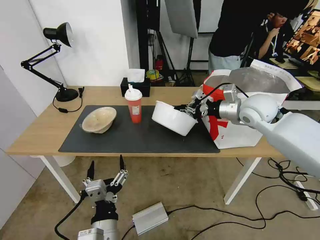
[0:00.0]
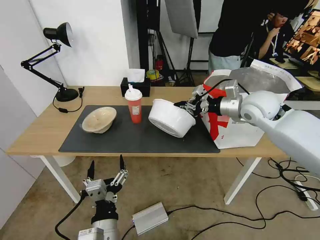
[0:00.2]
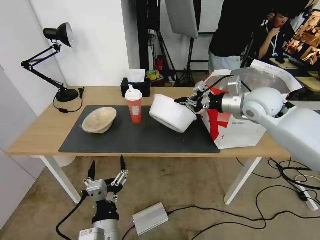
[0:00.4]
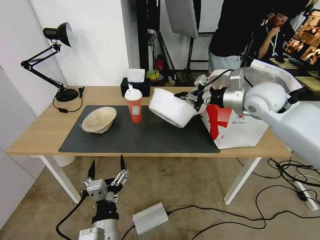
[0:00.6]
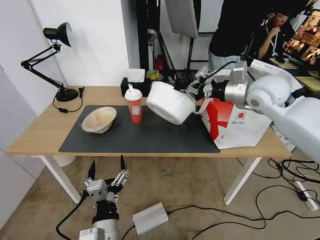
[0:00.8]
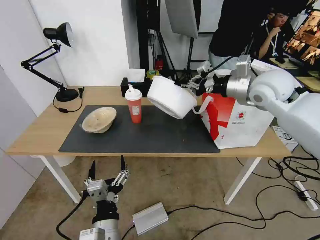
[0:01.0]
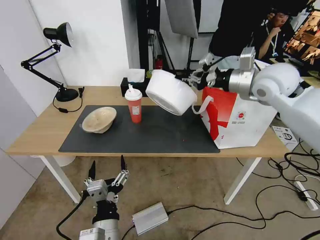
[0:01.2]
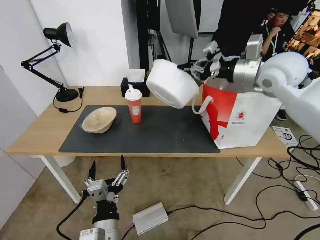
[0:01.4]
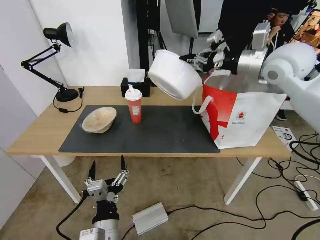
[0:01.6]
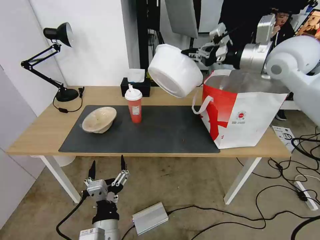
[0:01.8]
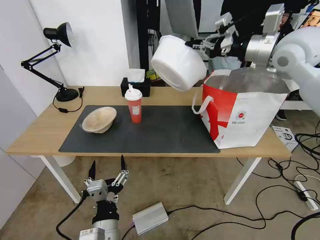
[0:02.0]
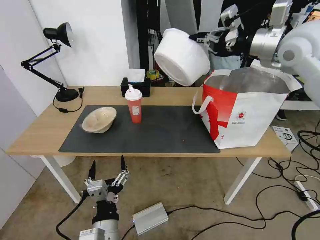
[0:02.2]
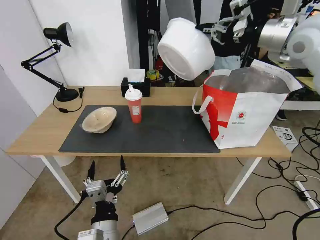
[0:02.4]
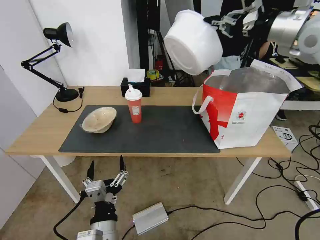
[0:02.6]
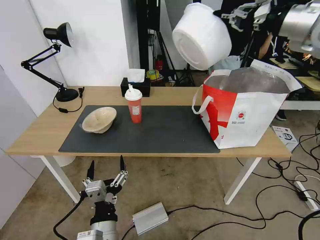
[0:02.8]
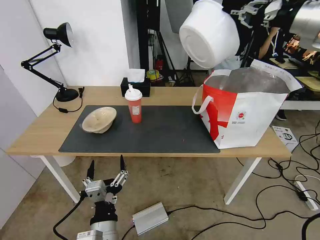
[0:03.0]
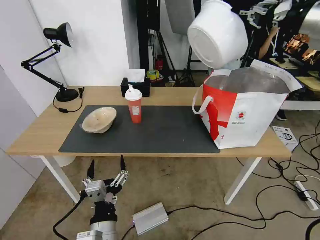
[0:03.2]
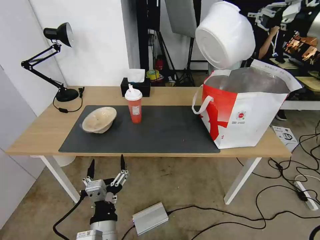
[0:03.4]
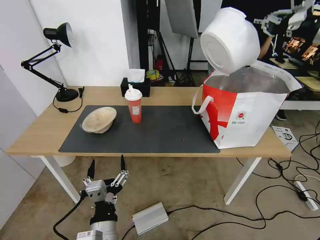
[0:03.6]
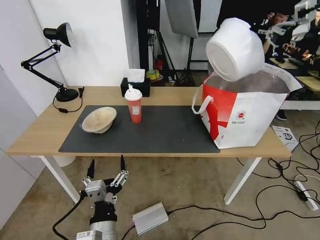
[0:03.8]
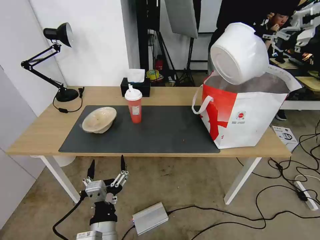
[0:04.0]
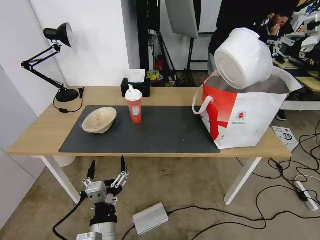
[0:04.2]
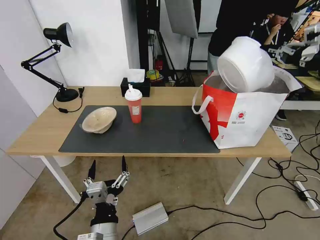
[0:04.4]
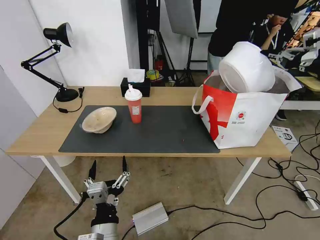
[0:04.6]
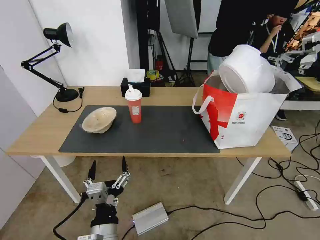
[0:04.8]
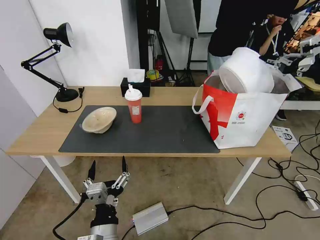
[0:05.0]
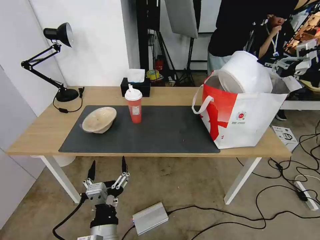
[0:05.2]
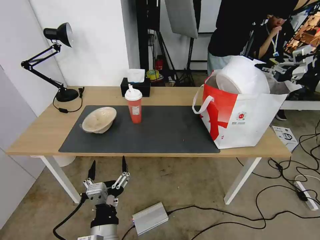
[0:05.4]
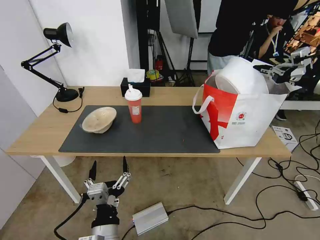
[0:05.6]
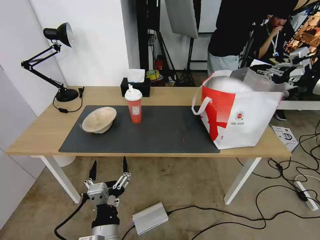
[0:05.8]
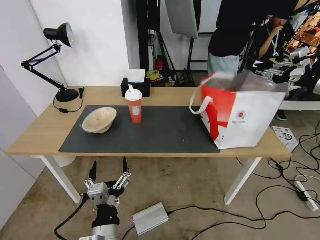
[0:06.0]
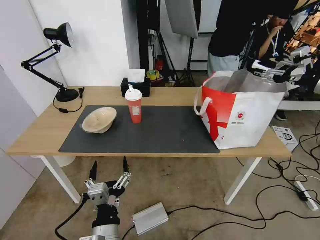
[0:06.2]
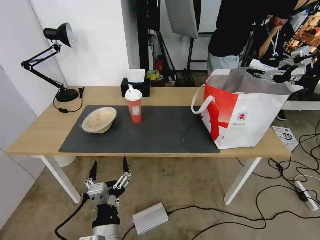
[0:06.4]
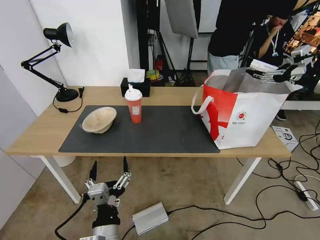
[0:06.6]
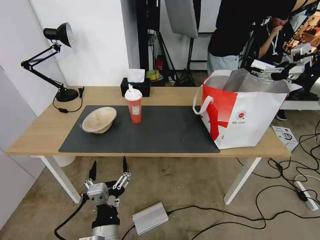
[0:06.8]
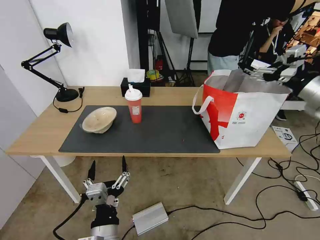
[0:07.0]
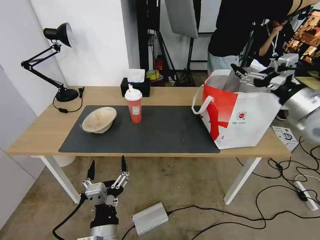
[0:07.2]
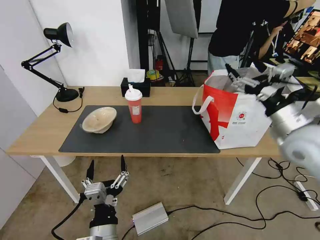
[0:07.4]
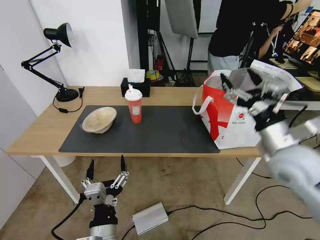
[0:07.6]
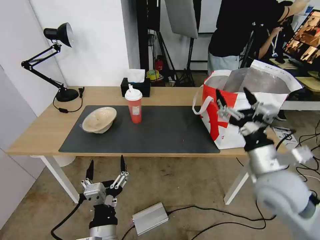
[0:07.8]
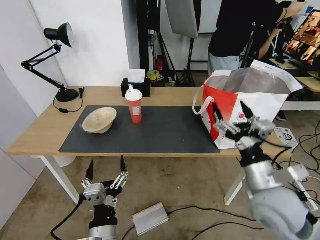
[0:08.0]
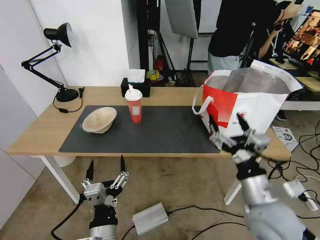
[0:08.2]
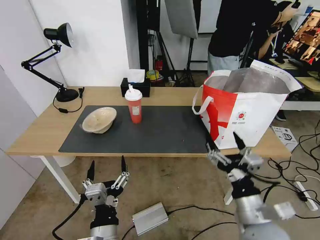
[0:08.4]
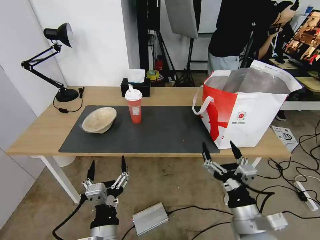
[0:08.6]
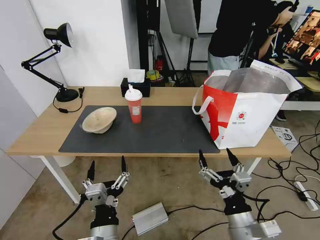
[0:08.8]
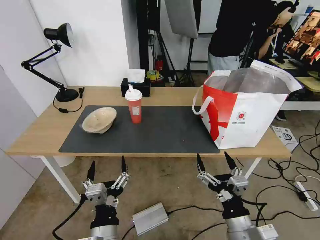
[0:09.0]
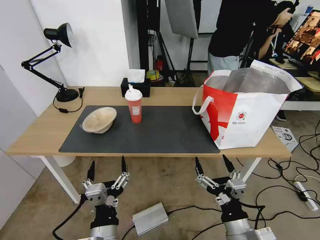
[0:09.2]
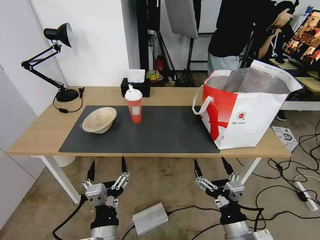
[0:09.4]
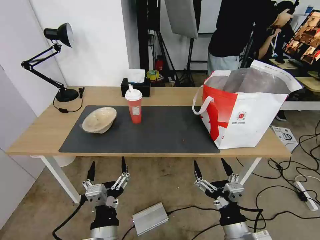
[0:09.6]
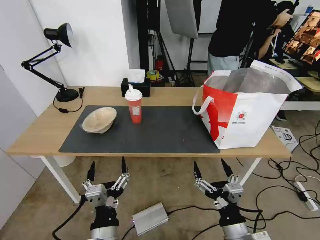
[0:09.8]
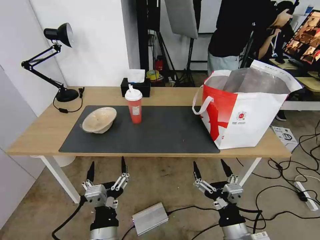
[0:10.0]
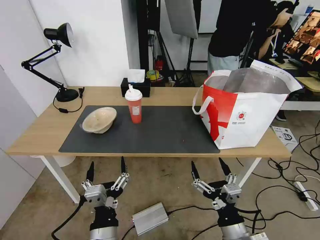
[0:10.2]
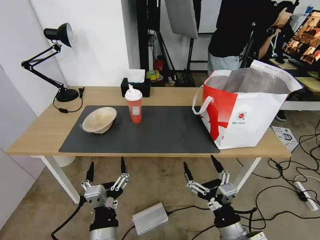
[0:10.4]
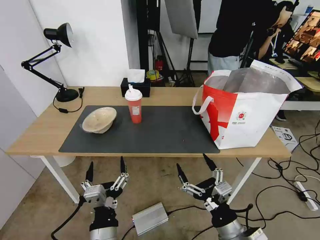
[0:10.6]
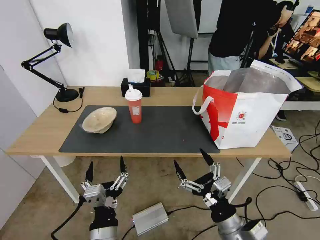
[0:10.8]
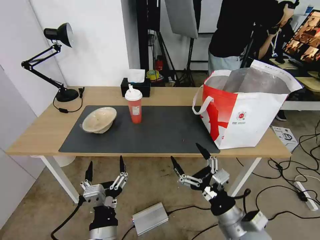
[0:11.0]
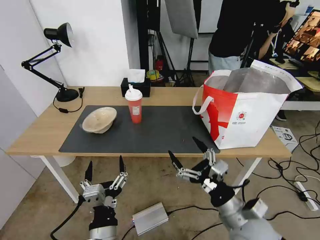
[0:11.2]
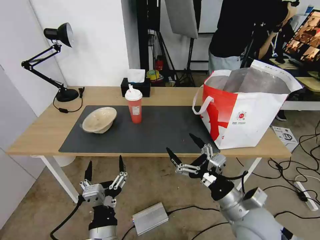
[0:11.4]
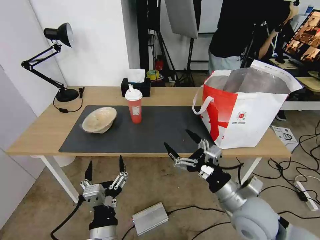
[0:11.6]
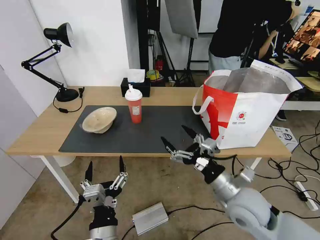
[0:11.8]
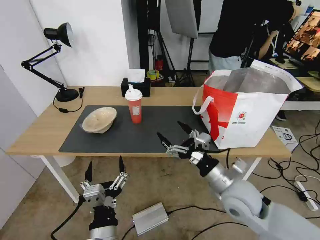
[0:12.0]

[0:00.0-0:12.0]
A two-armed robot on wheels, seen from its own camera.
Task of the whole recording: Pick up the trash from the table and place it into the takeout bag.
0:00.0 to 0:01.6: The right gripper goes about 15 cm upward.
0:01.6 to 0:03.0: The right gripper is displaced upward and to the right by roughly 15 cm.
0:03.0 to 0:04.4: The right gripper heads to the right, downward and backward, covering about 15 cm.
0:04.4 to 0:06.0: The right gripper opens.
0:06.0 to 0:07.6: The right gripper is displaced to the left, downward and backward by some 25 cm, and opens up.
0:07.6 to 0:09.0: The right gripper shifts some 25 cm backward, downward and to the left.
0:09.0 to 0:10.4: The grippers move only a little.
0:10.4 to 0:12.0: The right gripper is displaced forward and upward by approximately 15 cm.

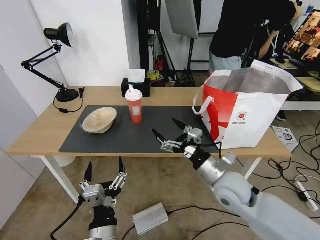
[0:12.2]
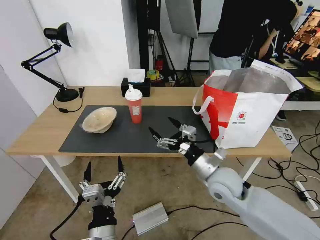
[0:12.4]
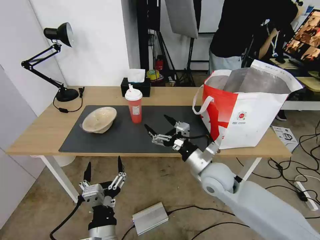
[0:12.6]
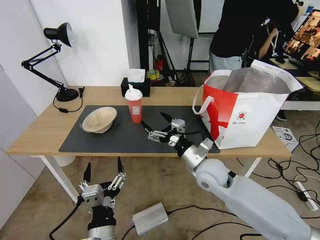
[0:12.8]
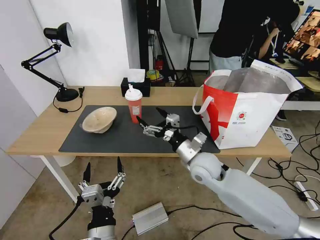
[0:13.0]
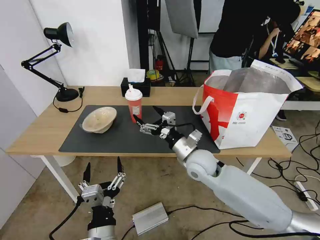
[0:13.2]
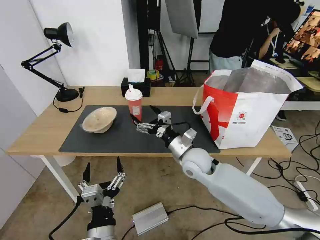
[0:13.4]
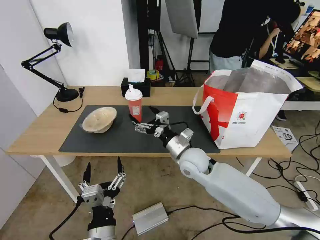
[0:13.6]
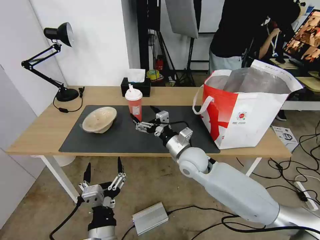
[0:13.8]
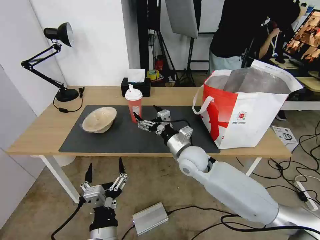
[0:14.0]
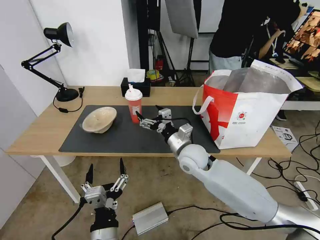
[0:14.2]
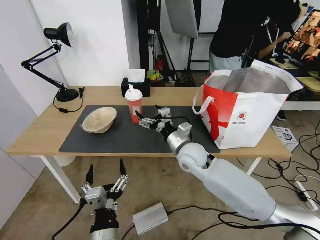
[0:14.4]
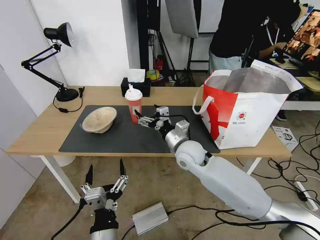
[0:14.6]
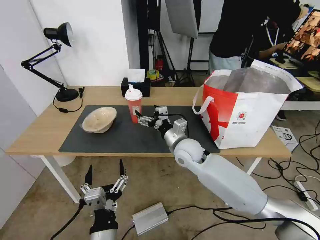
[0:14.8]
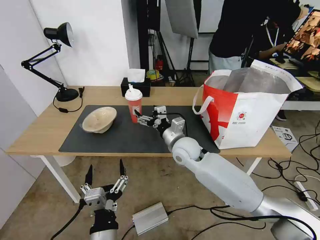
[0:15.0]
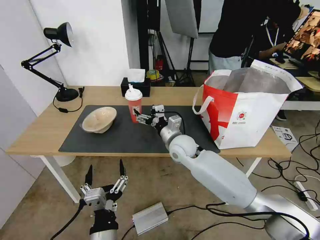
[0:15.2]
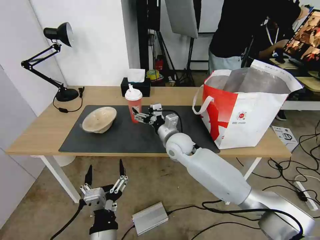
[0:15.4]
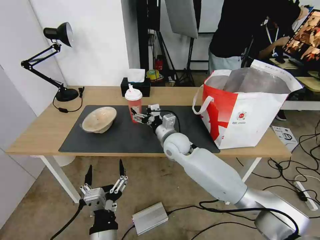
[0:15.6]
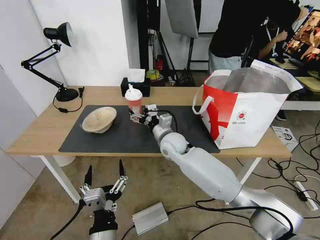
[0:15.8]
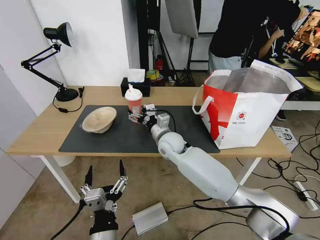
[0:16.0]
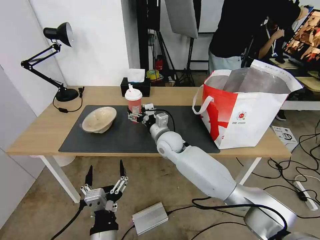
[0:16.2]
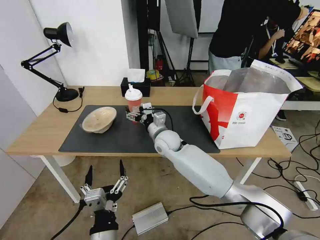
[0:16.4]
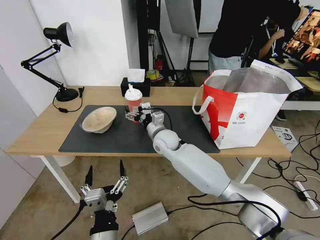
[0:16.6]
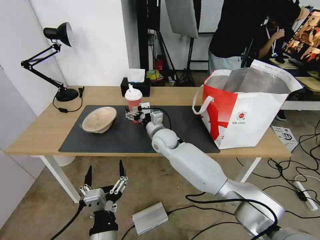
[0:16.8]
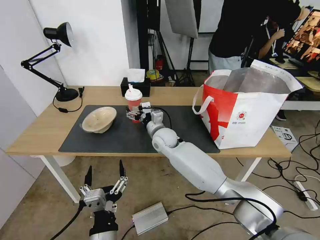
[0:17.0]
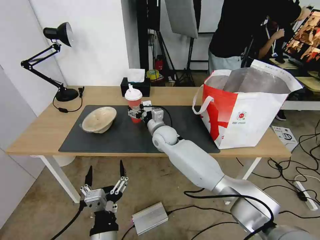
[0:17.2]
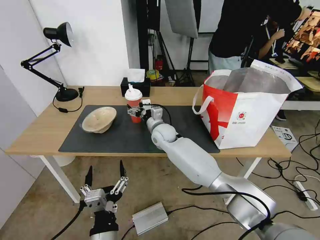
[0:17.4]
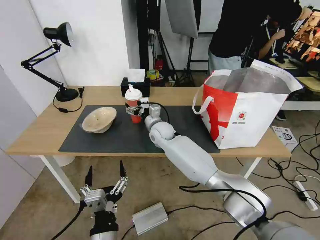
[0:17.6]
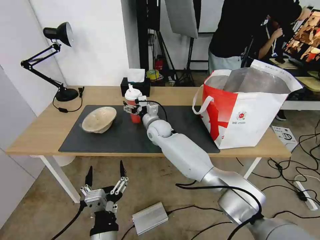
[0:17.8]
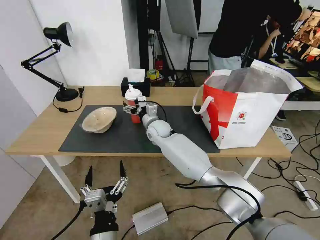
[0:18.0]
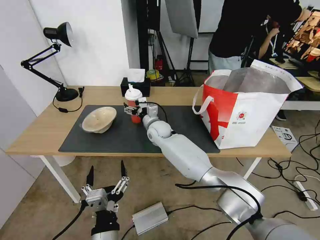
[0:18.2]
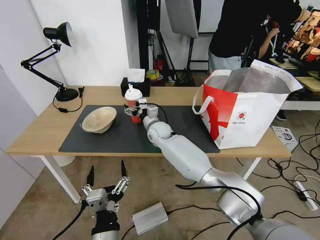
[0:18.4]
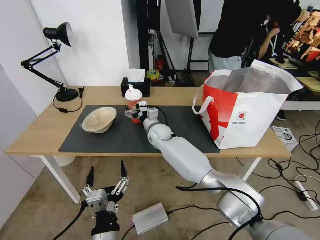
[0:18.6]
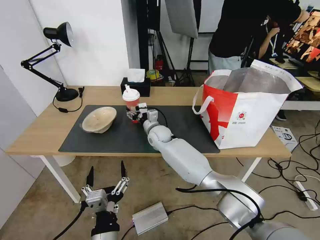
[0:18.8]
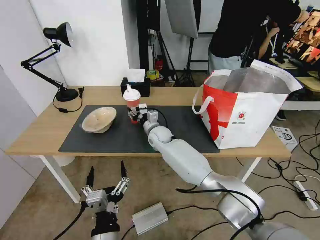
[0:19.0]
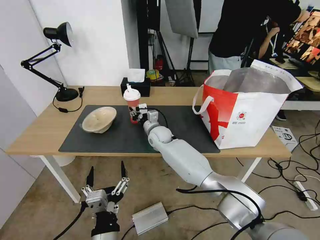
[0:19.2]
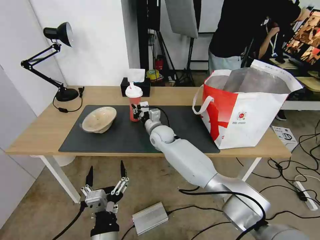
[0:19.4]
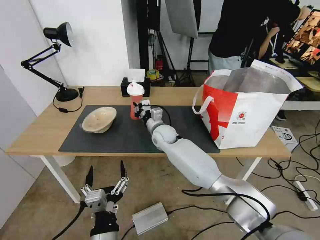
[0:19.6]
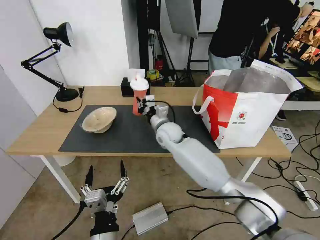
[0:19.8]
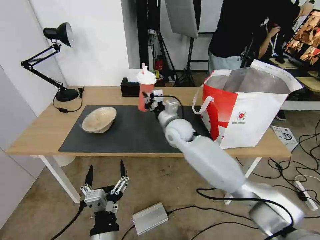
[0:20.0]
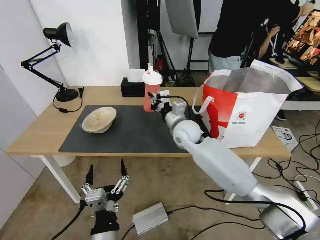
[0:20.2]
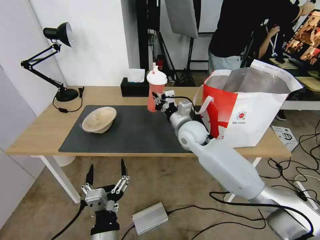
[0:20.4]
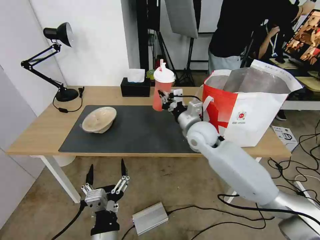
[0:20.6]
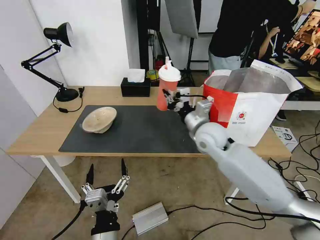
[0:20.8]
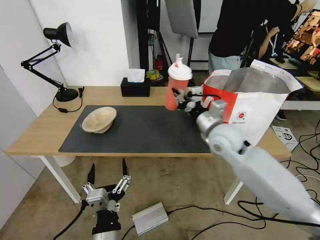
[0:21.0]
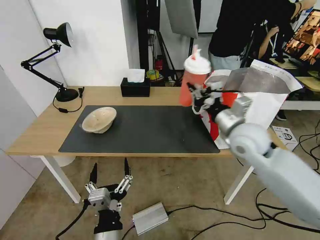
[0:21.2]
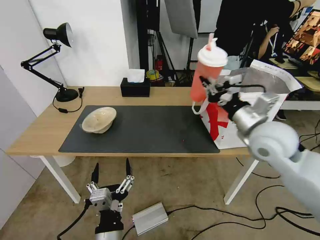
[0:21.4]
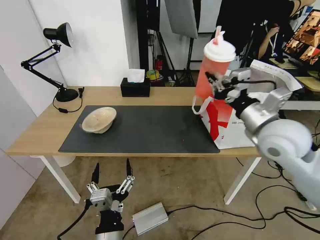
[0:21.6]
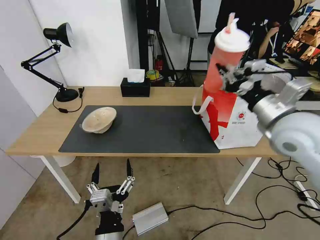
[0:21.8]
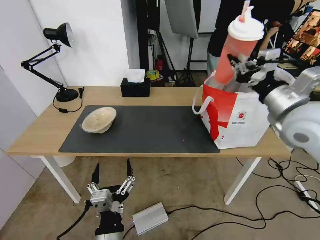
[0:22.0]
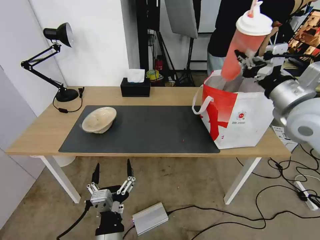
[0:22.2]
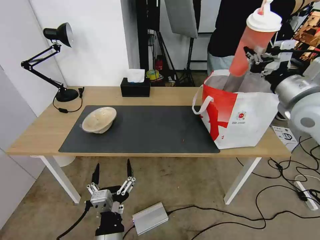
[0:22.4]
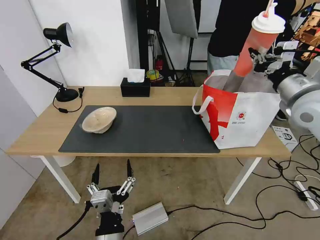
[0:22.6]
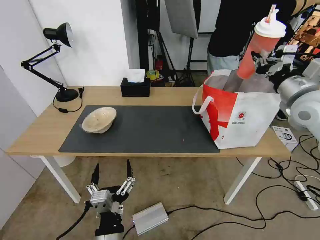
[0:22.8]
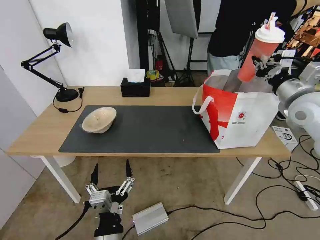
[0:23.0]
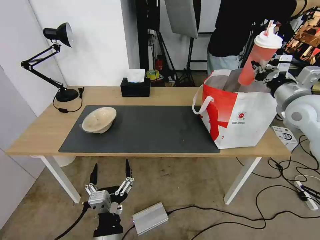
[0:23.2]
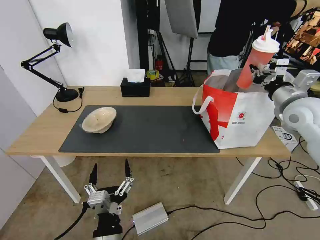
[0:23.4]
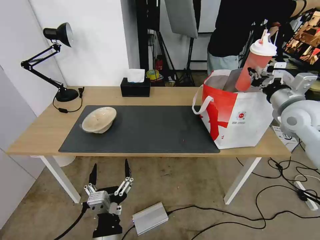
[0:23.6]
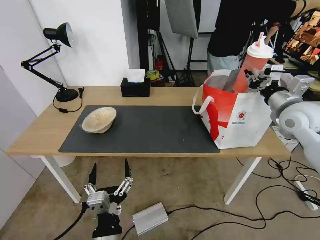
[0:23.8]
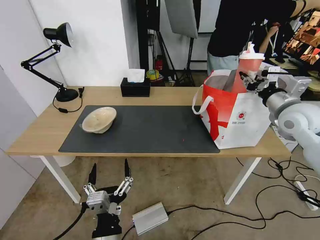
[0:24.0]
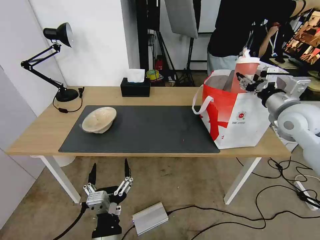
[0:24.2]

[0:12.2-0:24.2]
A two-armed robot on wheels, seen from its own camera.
Task of the whole recording: Pick up the trash from the table and place it into the takeout bag.
0:12.2 to 0:13.8: The right gripper heads forward and to the left, covering about 15 cm.
0:13.8 to 0:15.2: The right gripper travels forward by approximately 5 cm.
0:15.2 to 0:16.6: The right gripper goes approximately 5 cm to the left.
0:16.6 to 0:18.2: The right gripper goes approximately 5 cm forward.
0:18.2 to 0:19.8: The right gripper moves some 5 cm, and closes its fingers.
0:19.8 to 0:21.2: The right gripper heads to the right, backward and upward, covering some 25 cm.
0:21.2 to 0:22.6: The right gripper moves to the right and upward, some 15 cm.
0:22.6 to 0:24.2: The right gripper moves downward, about 5 cm, and opens up.
